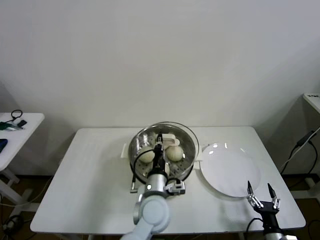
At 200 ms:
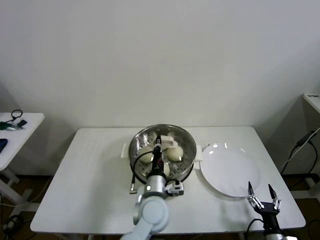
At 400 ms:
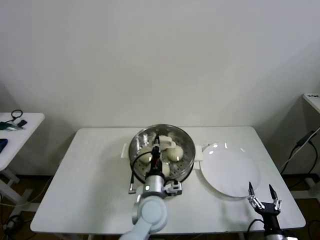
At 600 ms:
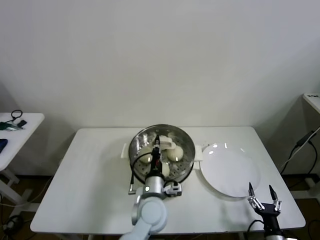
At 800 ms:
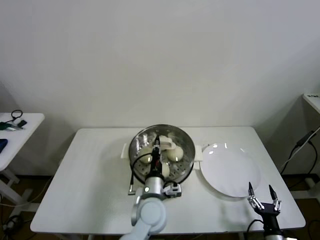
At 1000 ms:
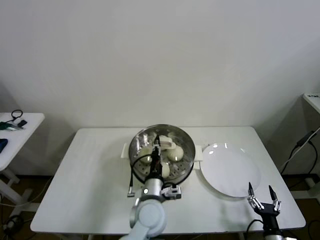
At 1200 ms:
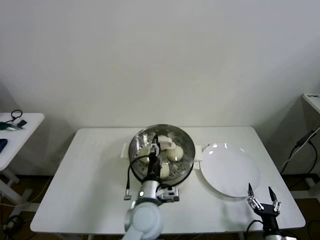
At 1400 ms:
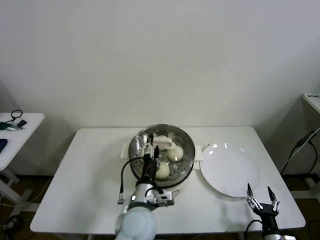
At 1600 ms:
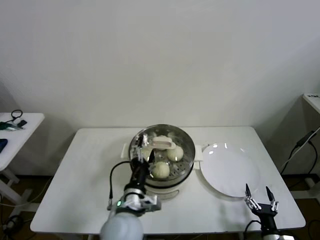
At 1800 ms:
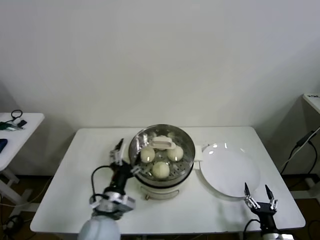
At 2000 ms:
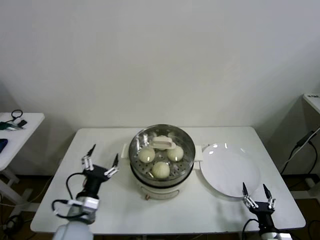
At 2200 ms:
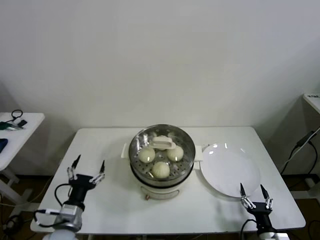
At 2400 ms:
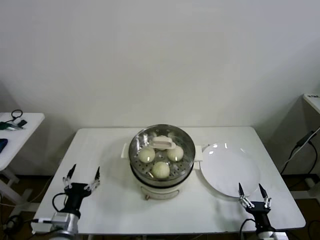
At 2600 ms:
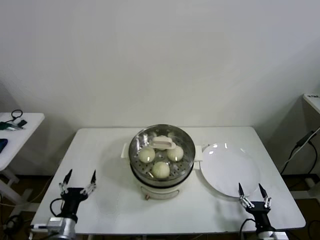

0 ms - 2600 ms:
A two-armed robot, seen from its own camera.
Task of the whole recording: take steamed baozi put them in steamer then cover it.
0 ms - 1200 ms: The left gripper opens its fingers.
1200 ms - 2600 ms: The left gripper goes some 25 cm to the left, and opens up.

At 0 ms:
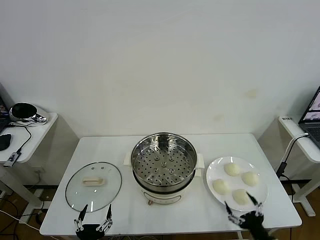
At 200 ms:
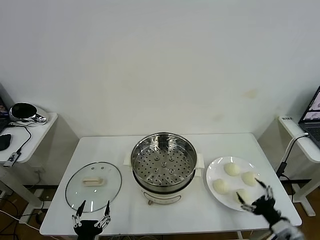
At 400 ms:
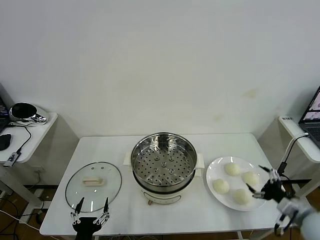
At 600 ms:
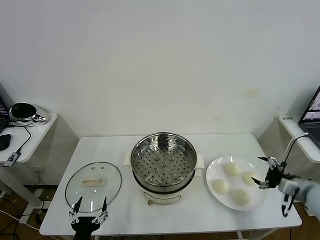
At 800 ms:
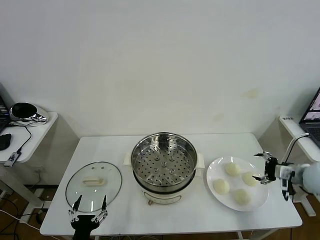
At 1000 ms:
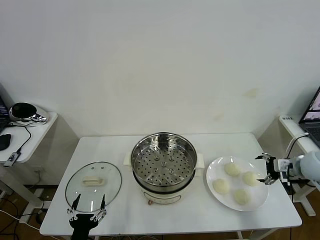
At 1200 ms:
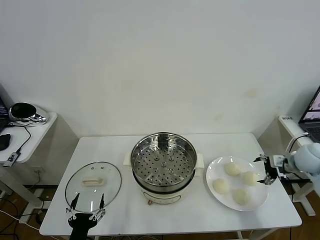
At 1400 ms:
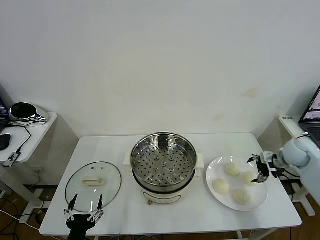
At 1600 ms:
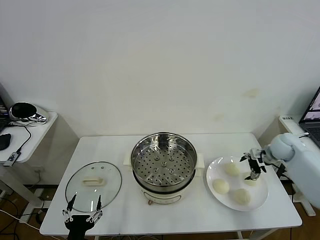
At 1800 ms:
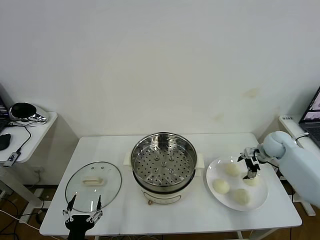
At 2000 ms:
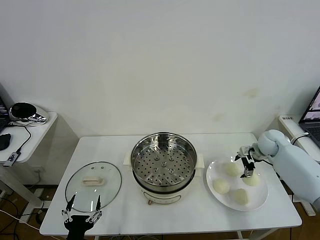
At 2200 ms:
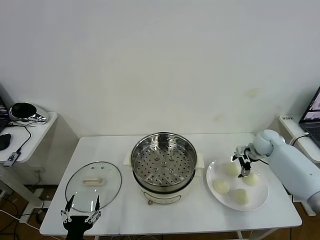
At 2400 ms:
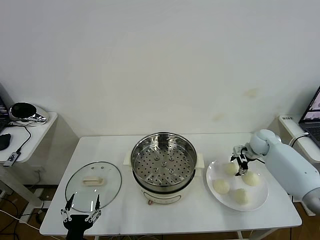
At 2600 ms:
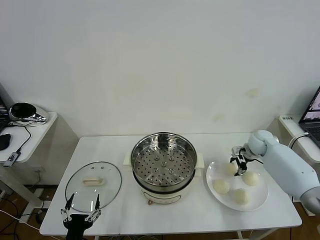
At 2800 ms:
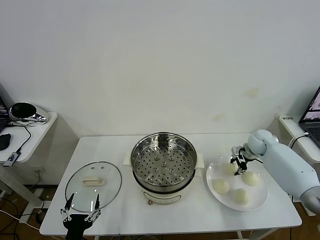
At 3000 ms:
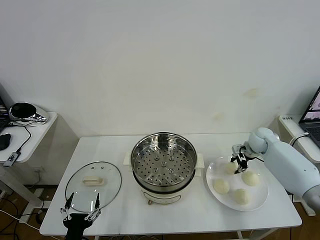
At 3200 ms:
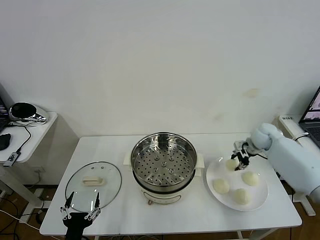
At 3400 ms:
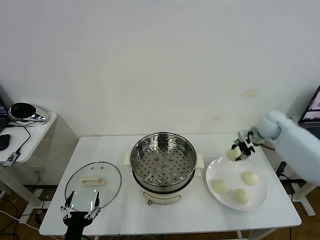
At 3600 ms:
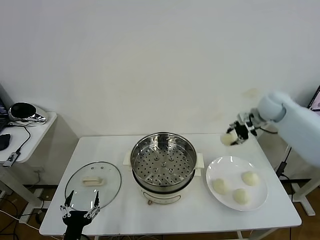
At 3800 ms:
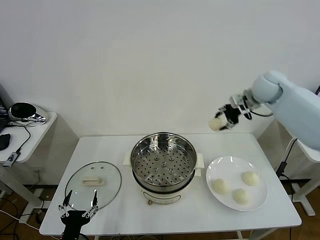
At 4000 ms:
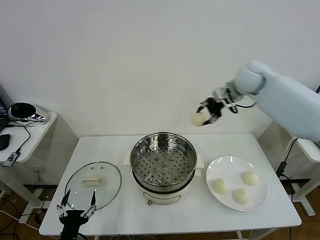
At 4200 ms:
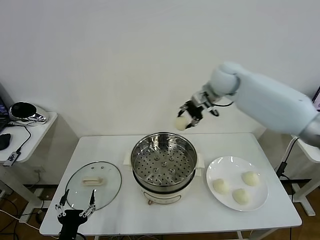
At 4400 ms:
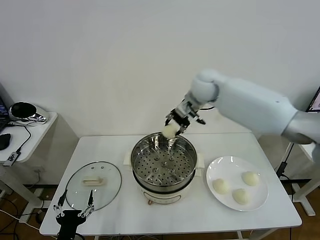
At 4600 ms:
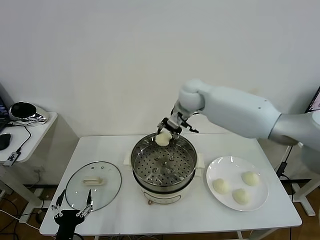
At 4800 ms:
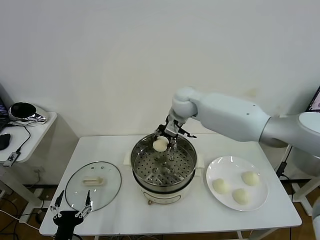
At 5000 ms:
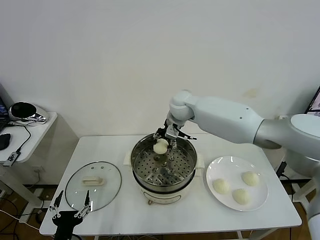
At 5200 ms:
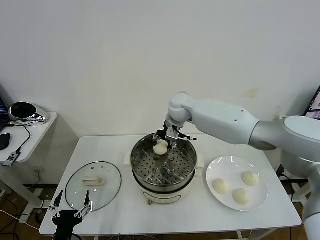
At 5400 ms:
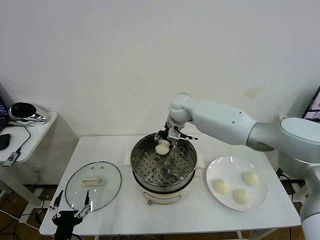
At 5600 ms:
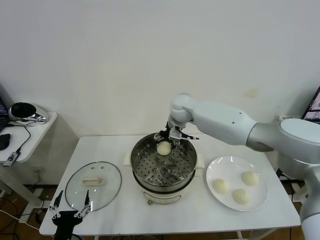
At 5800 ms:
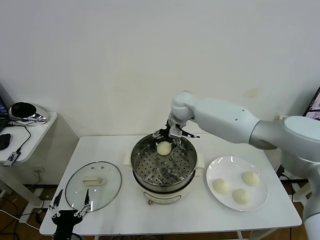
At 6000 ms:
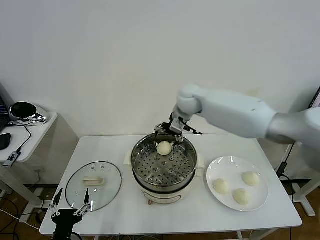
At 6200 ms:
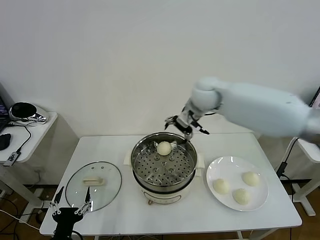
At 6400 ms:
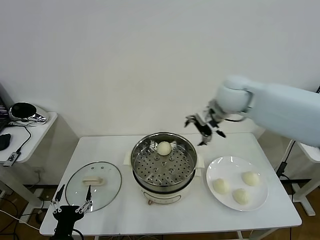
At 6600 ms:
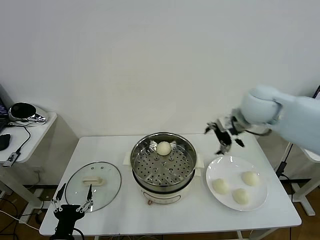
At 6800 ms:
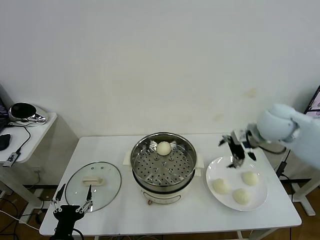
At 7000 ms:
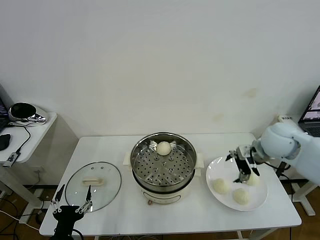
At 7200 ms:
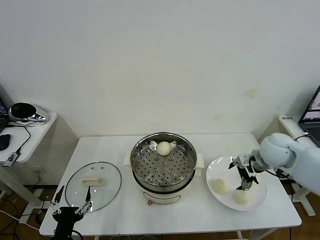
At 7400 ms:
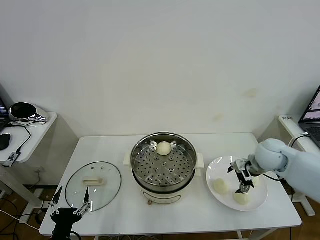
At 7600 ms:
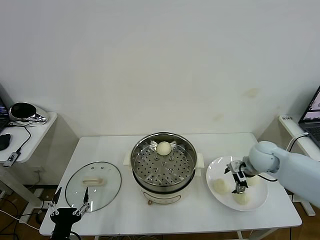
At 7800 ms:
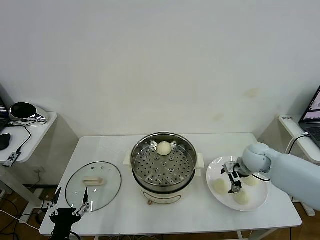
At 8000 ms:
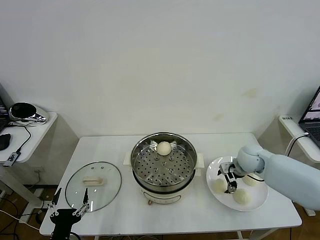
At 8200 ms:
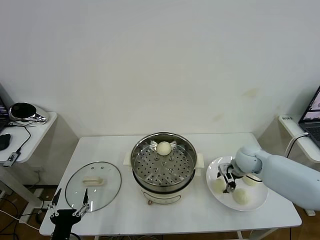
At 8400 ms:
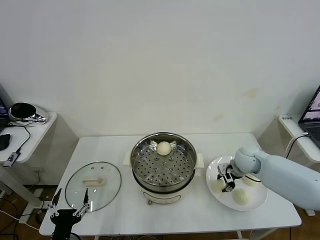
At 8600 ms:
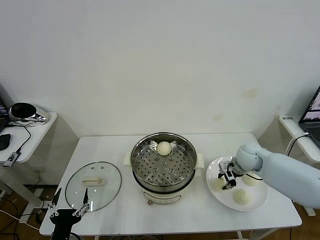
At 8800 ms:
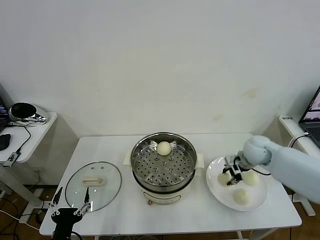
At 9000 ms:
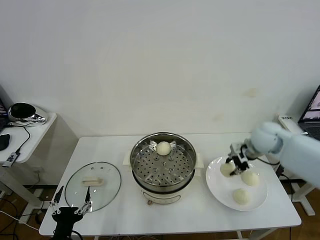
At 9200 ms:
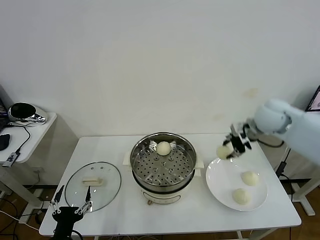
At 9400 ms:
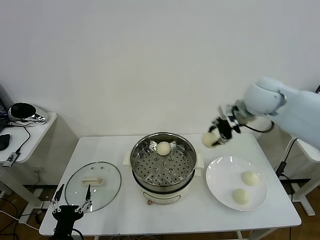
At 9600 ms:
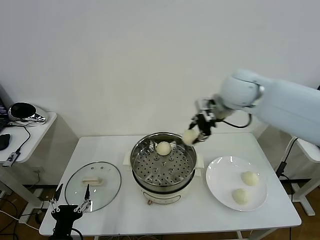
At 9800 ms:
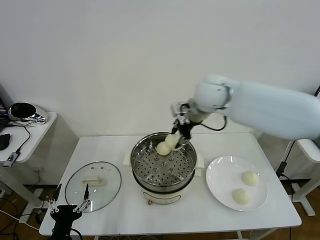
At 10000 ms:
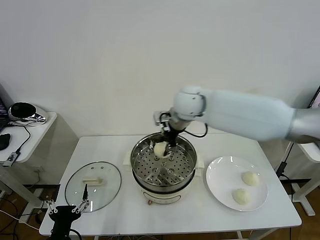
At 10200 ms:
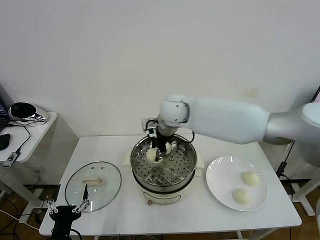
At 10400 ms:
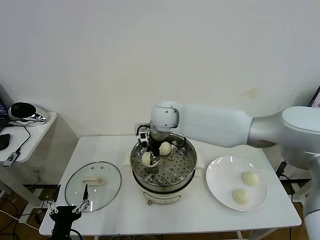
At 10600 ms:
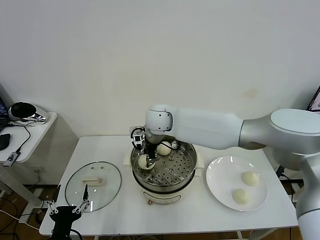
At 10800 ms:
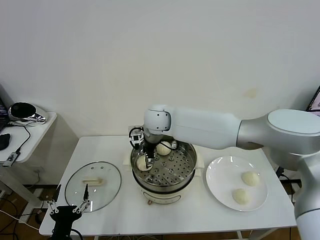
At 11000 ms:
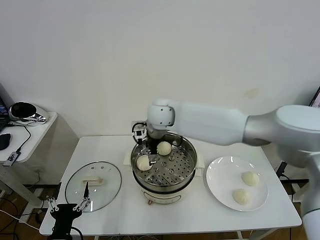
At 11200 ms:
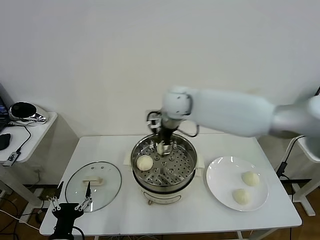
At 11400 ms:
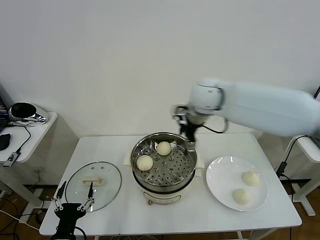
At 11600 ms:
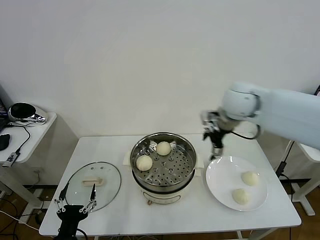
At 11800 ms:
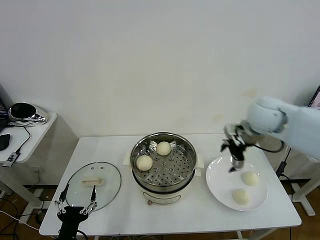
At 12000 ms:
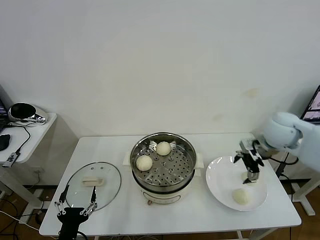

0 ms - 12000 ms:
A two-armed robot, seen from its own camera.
Task of the whole recording: take steamed baozi put them in steamer then cover it.
Step, 0 ms - 2600 ms: Grasp the baozi in the plate with right gripper.
Step, 2800 ms - 5600 ms: Place the baozi on the steamer with right gripper.
Step, 5800 ms - 8400 ms: Grasp the baozi in the plate with right gripper.
Step, 8600 ms - 10800 ms: Place the baozi on the steamer with right gripper.
1600 ms - 3000 ms: The right gripper moves some 5 cm, and closes up.
3000 ms - 4400 ms: The right gripper travels to the left and upward by some 35 cm.
4400 ms - 6000 ms: The right gripper moves about 10 cm downward and comes back, and opens up.
6000 ms - 7600 ms: The right gripper heads to the right, downward and backward, covering some 30 cm.
7600 ms - 9000 ms: The right gripper moves upward, some 10 cm, and closes up.
9000 ms - 10400 ms: The right gripper heads to the left, covering approximately 35 cm.
10400 ms - 12000 ms: The right gripper shifts roughly 35 cm to the right, and opens.

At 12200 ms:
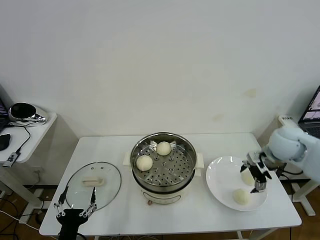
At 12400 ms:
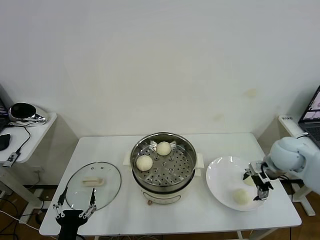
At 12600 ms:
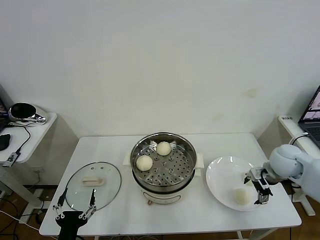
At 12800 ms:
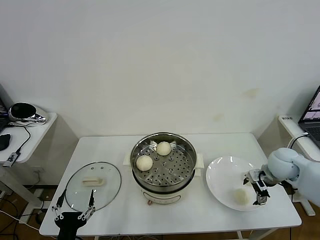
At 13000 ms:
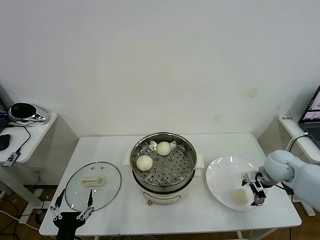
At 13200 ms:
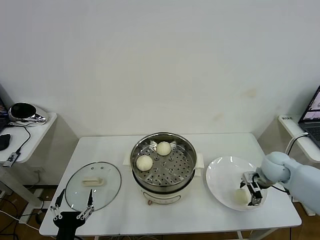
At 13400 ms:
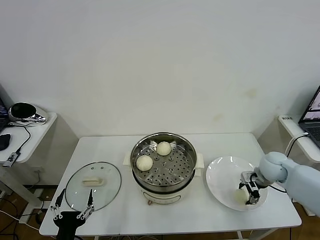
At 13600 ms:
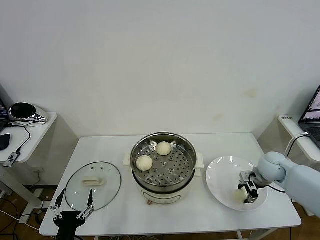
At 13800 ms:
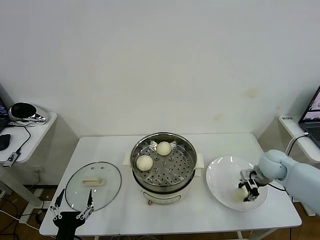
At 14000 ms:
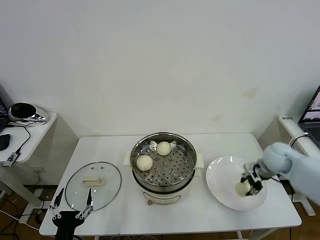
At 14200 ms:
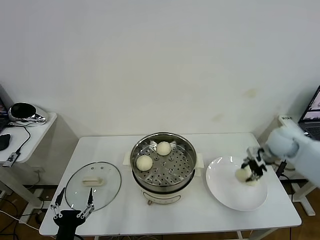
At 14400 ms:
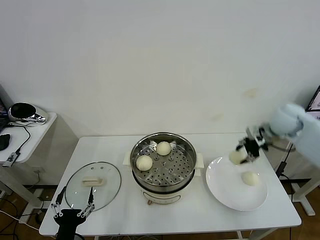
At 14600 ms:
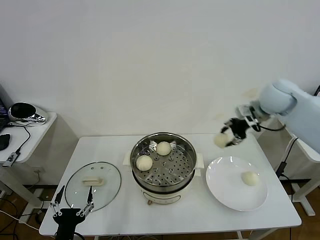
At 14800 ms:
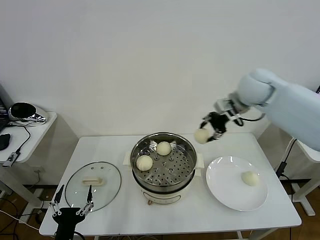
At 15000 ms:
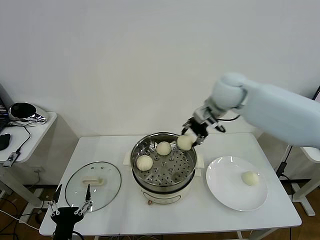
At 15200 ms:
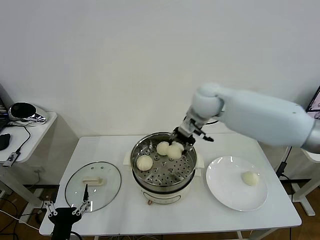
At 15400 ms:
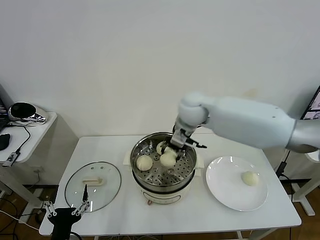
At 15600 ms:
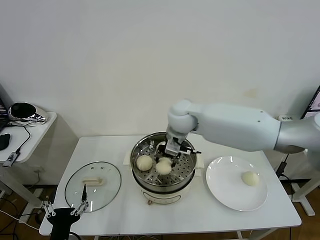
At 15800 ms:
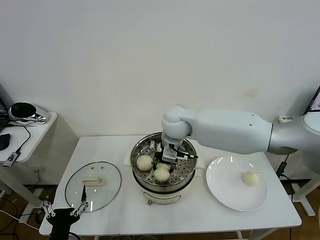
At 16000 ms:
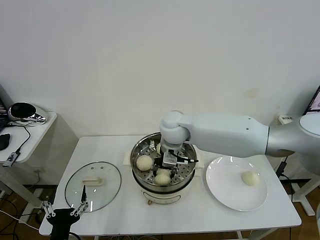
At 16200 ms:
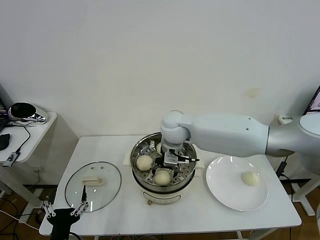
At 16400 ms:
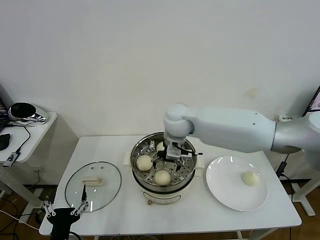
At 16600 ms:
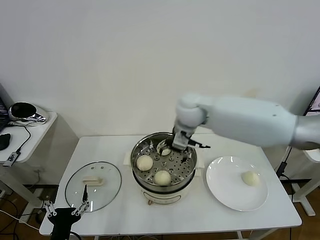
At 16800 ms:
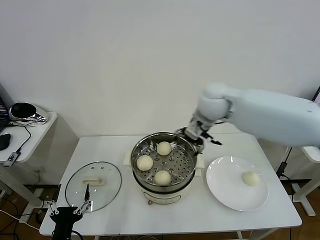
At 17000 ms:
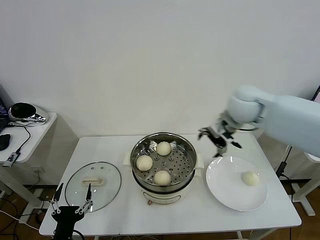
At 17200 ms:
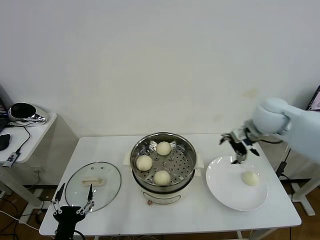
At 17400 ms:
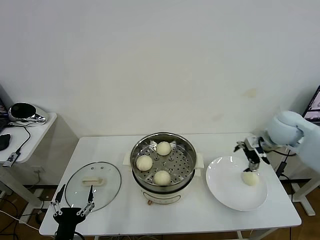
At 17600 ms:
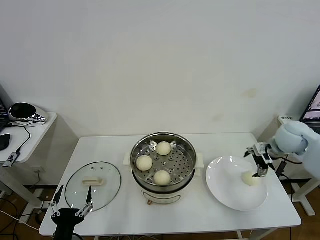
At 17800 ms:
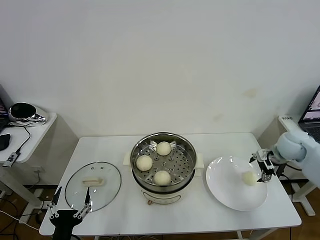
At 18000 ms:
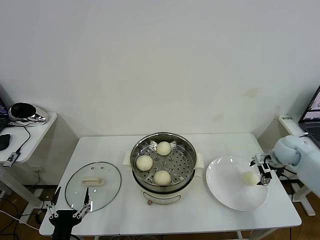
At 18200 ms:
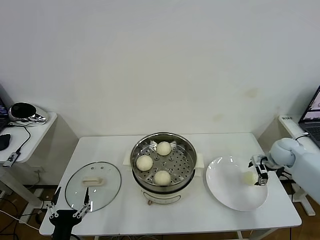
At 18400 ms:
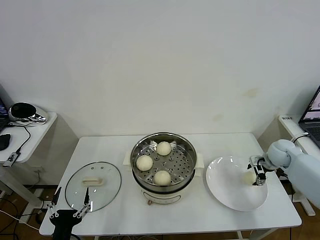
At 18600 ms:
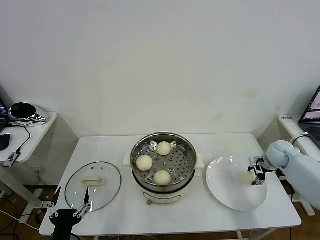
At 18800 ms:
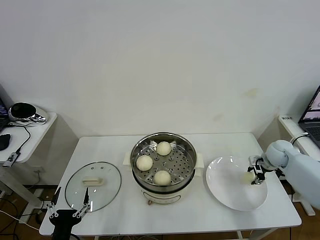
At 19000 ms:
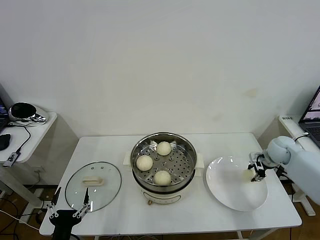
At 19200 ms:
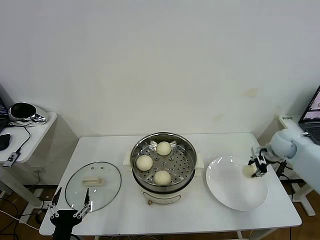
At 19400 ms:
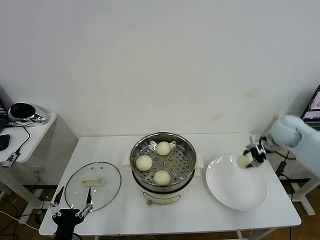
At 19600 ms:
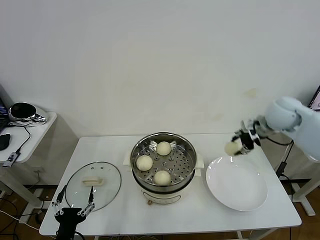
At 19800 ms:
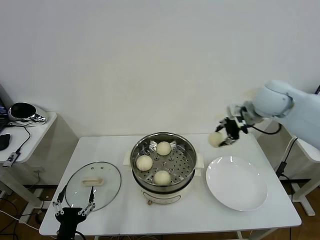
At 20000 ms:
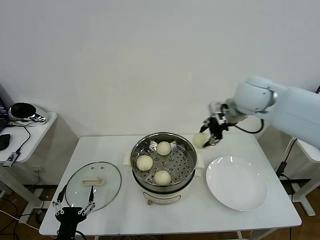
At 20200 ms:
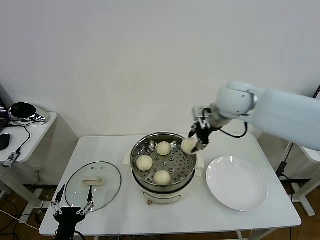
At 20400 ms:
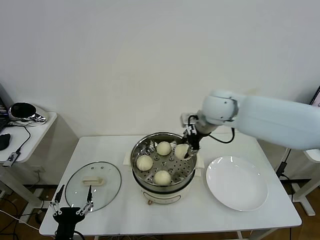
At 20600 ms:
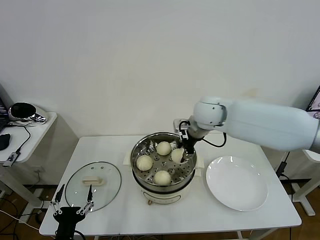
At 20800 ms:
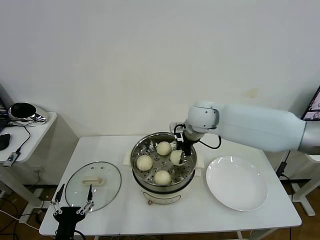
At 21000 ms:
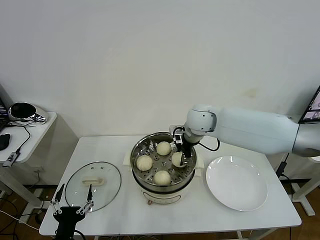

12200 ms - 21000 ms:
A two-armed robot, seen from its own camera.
Task of the whole recording: take steamed baozi put them in steamer then cover it.
Step, 12200 ms - 13600 ms: Grasp the baozi in the plate with right gripper.
Step, 13800 ms - 16400 ms: Place the baozi on the steamer with right gripper.
Step, 16600 ms - 18800 ms: Grasp the baozi in the plate with right gripper.
12200 ms - 13600 ms: The right gripper travels downward by some 10 cm, and closes.
13600 ms - 15200 ms: The right gripper goes roughly 35 cm to the left and upward.
15200 ms - 16600 ms: The right gripper opens.
16600 ms - 18000 ms: The right gripper moves to the right and downward, some 40 cm.
18000 ms - 19600 ms: The right gripper heads upward and to the left, covering some 20 cm, and closes its fingers.
19600 ms - 21000 ms: The right gripper goes some 25 cm to the left.
